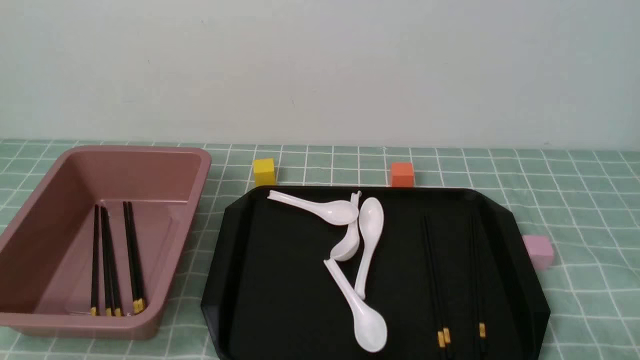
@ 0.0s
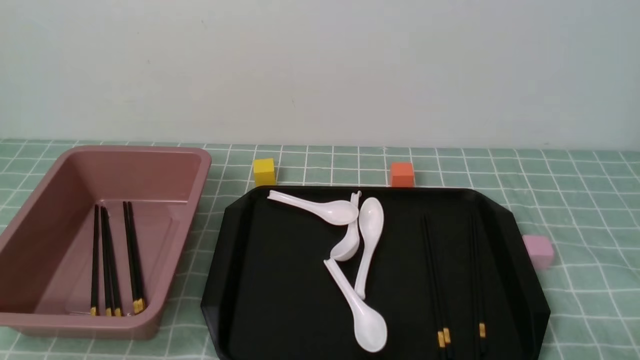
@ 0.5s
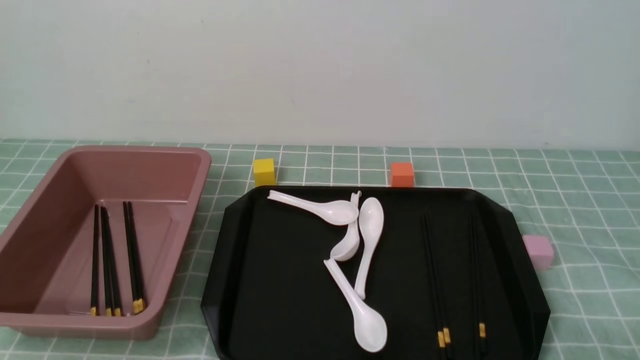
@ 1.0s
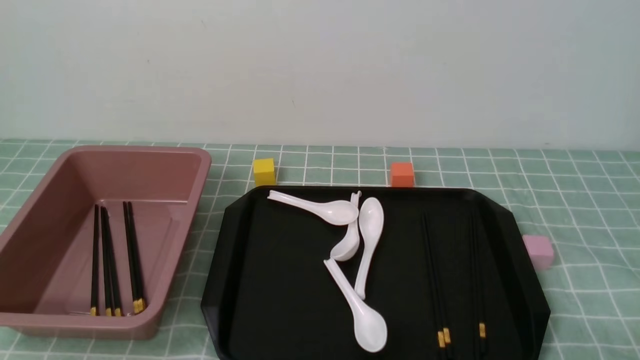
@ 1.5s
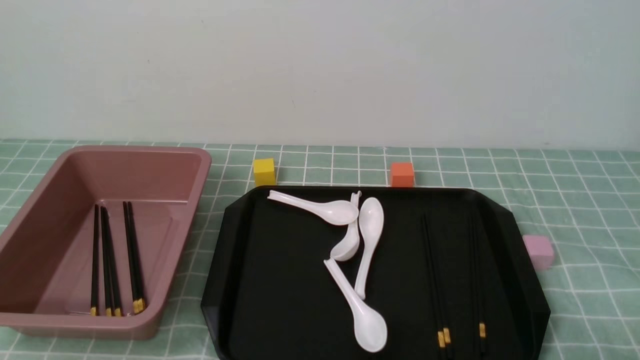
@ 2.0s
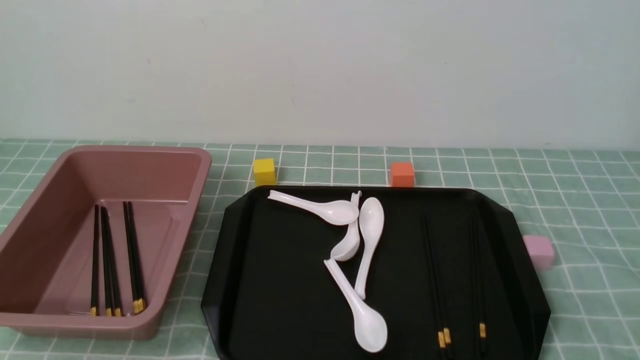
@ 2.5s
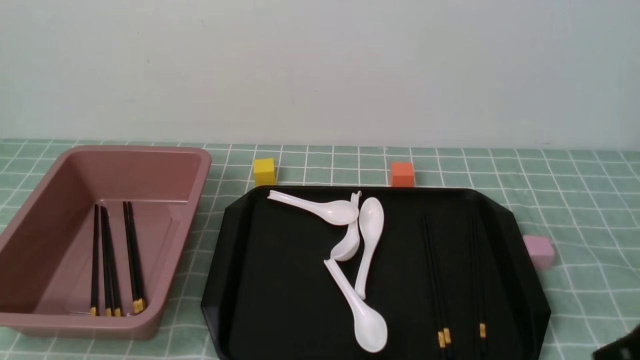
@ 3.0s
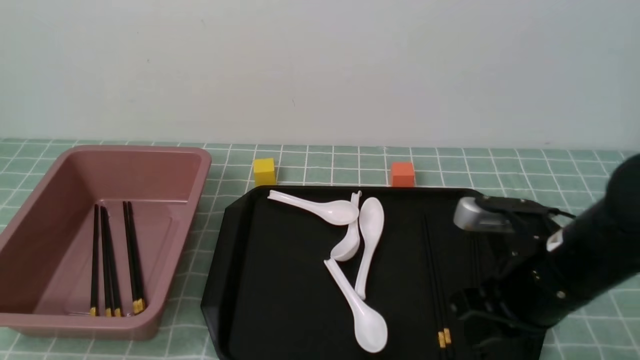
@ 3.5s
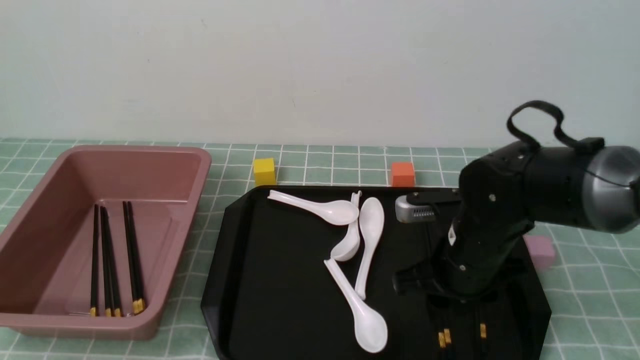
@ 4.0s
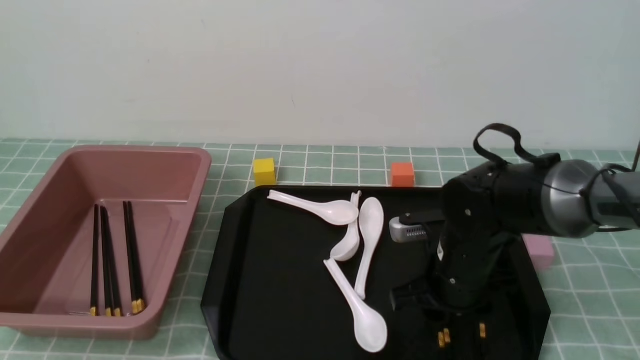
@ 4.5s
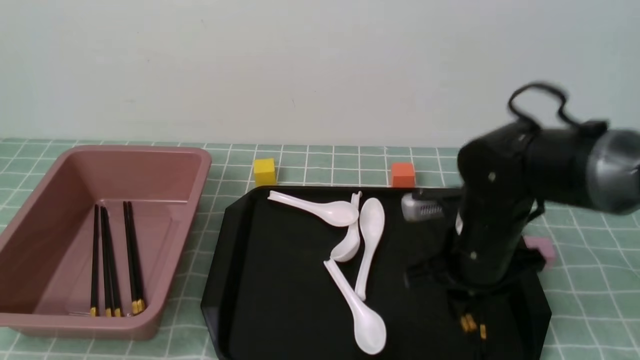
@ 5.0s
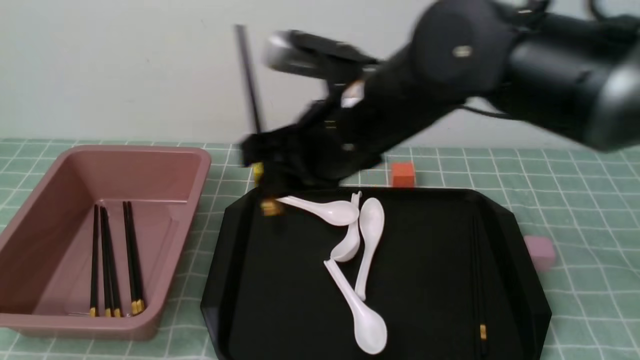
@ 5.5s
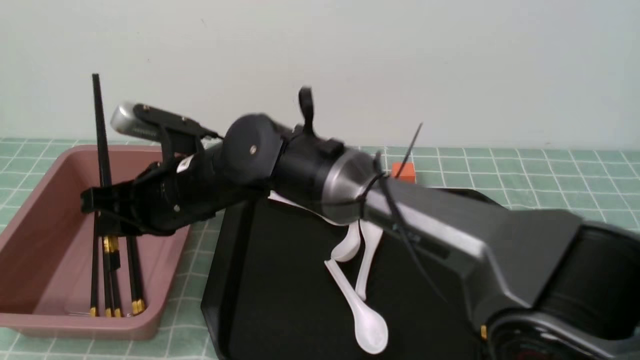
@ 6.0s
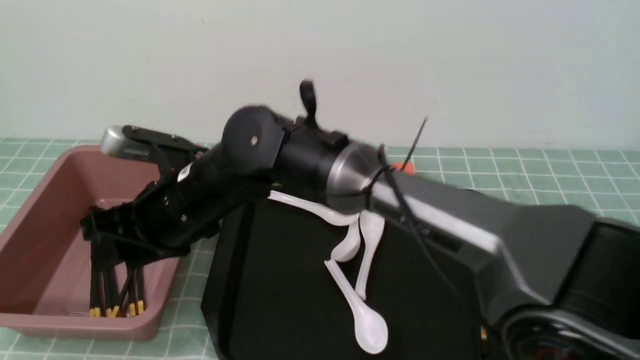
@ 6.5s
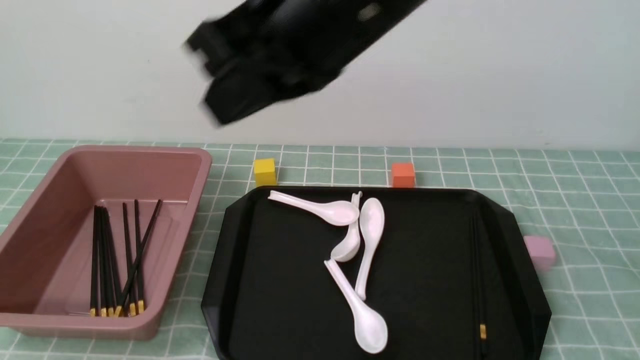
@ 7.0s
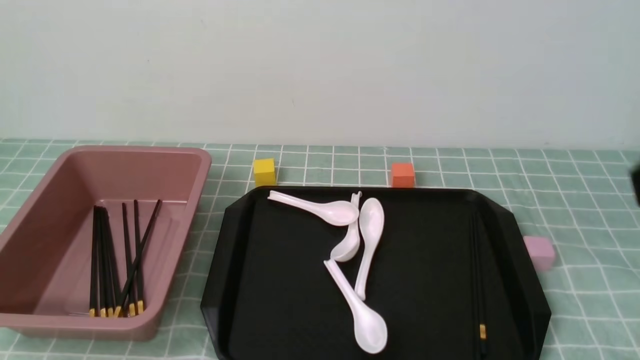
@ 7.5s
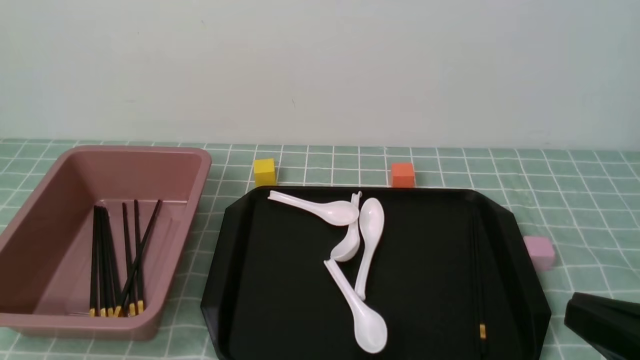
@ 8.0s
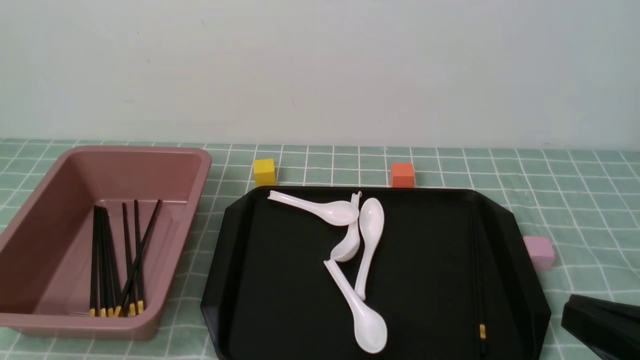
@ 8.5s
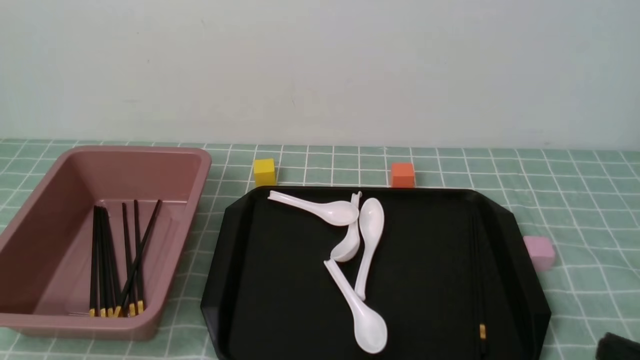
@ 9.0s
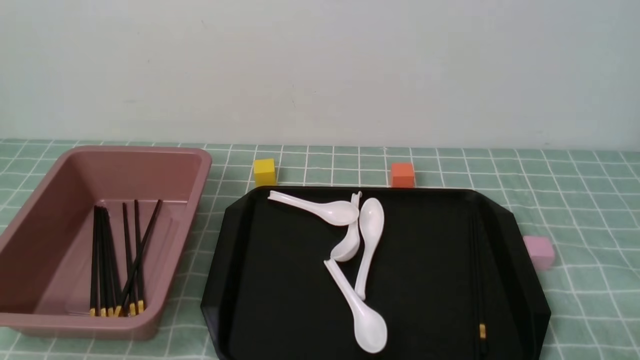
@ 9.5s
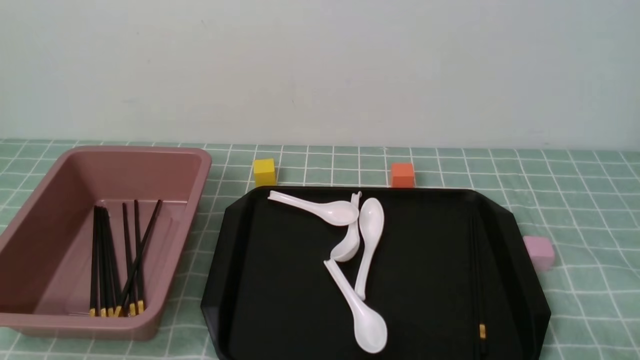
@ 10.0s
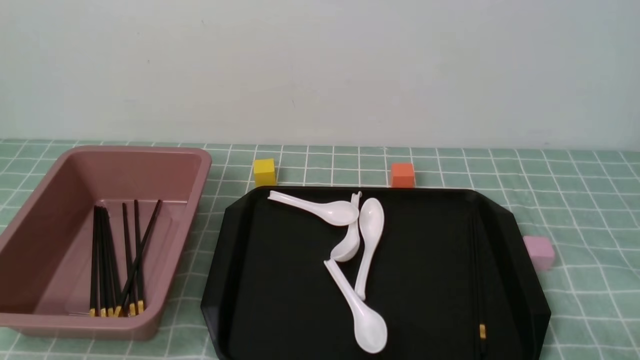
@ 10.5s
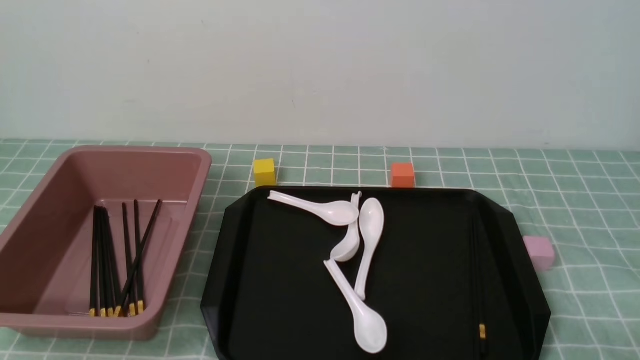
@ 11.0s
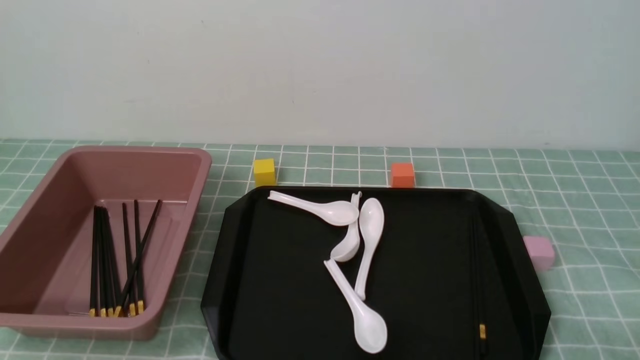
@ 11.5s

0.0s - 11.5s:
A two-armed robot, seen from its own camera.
Step, 0.0s - 5.0s: use the right arm to grab a pair of chopsticks.
Step, 5.5s - 6.5s: use the right arm to put the chopsticks into the lunch box.
2.0s - 4.0s: The right gripper travels forward and to the left by about 30 cm, and closes, then reopens.
4.0s - 6.0s: The right gripper moves to the left, roughly 25 cm.
6.0s - 7.5s: The right gripper travels to the right, backward and upward by approximately 50 cm, and closes its fingers.
7.5s - 9.5s: The right gripper is displaced downward by approximately 25 cm.
